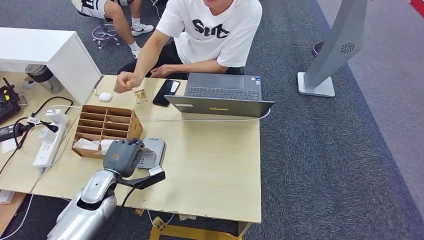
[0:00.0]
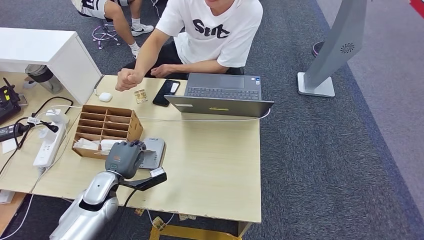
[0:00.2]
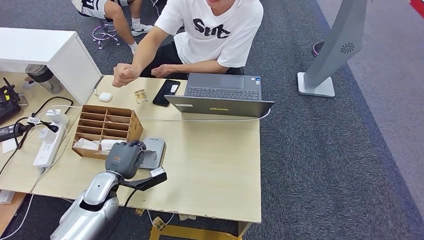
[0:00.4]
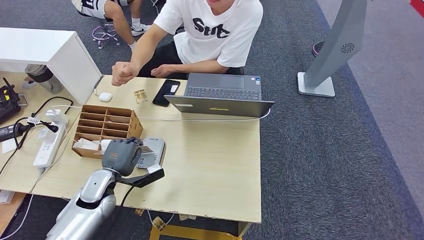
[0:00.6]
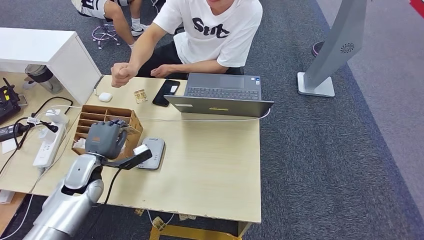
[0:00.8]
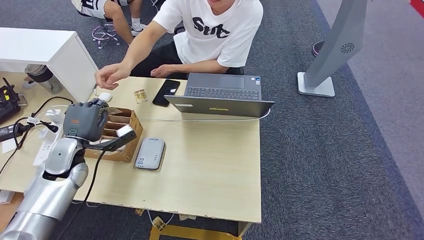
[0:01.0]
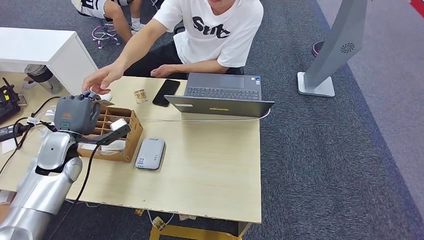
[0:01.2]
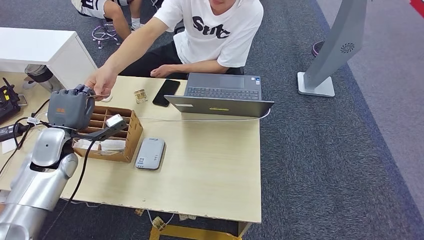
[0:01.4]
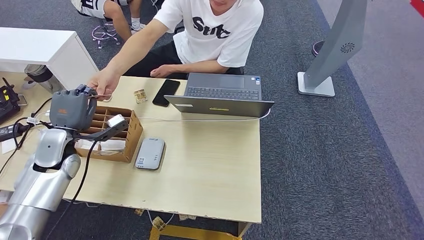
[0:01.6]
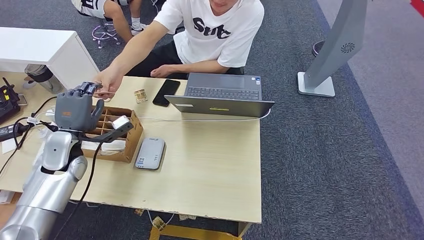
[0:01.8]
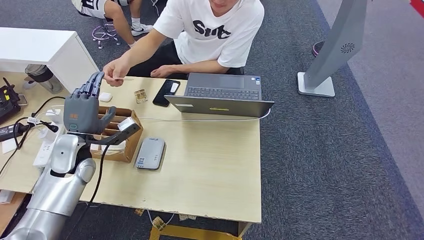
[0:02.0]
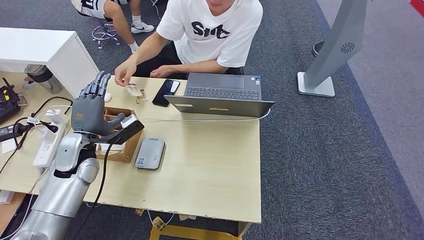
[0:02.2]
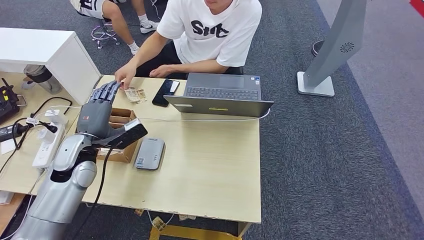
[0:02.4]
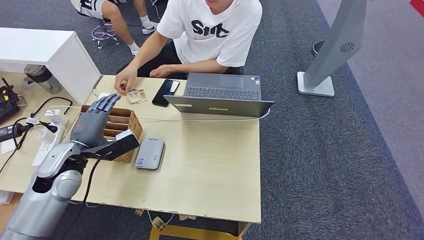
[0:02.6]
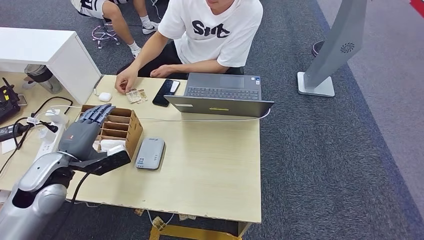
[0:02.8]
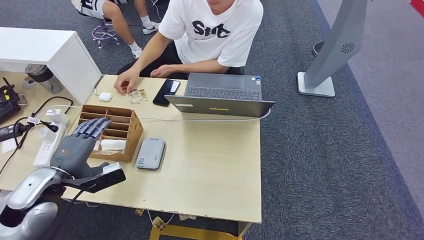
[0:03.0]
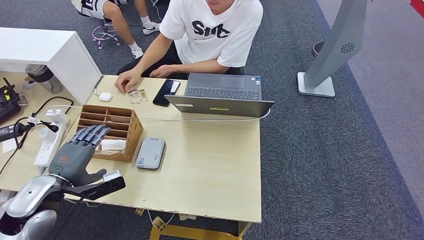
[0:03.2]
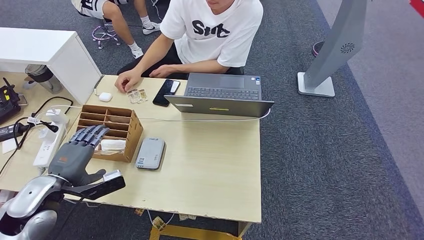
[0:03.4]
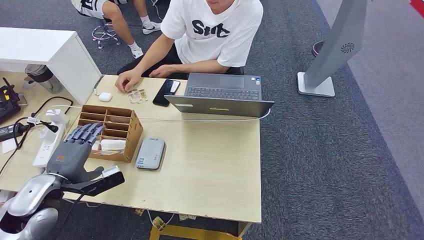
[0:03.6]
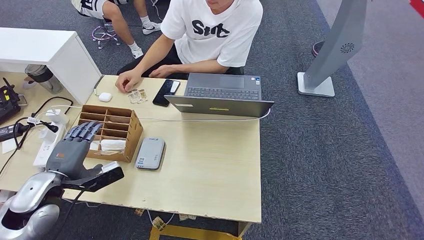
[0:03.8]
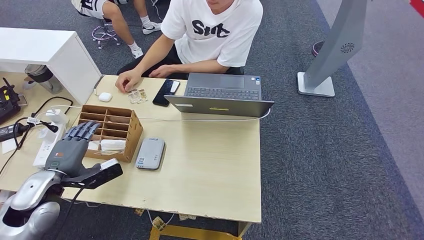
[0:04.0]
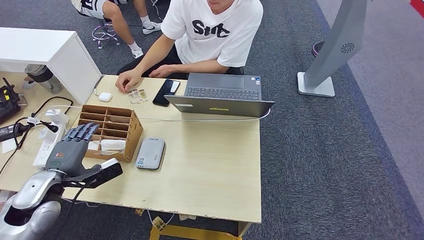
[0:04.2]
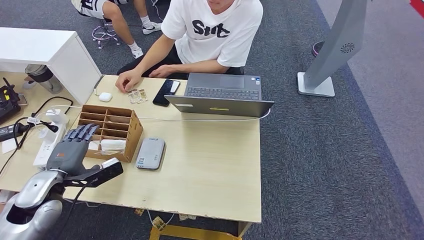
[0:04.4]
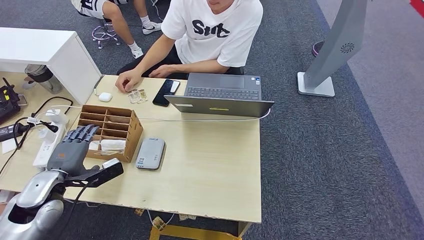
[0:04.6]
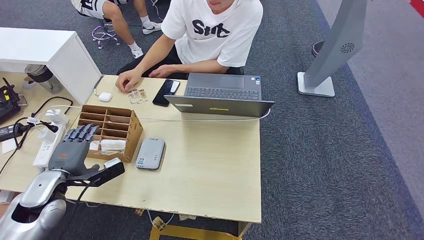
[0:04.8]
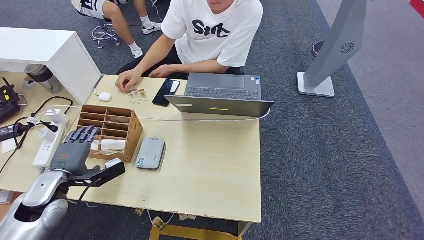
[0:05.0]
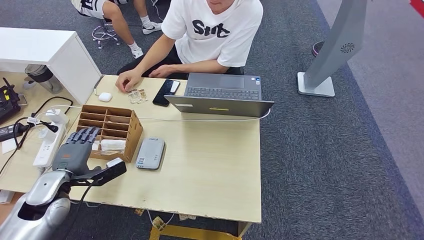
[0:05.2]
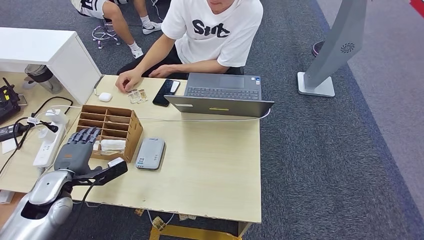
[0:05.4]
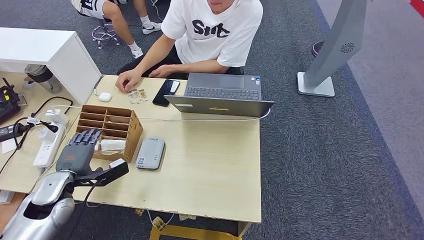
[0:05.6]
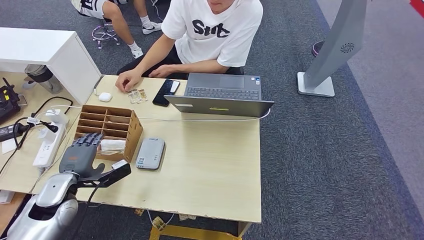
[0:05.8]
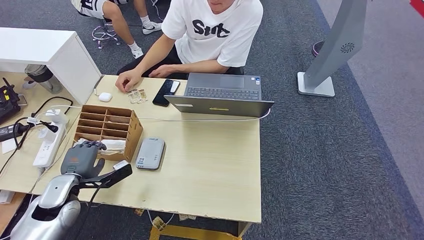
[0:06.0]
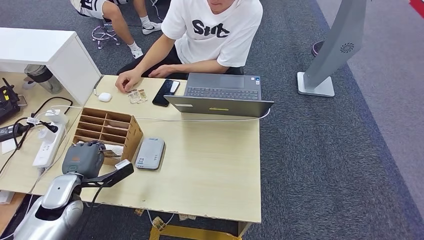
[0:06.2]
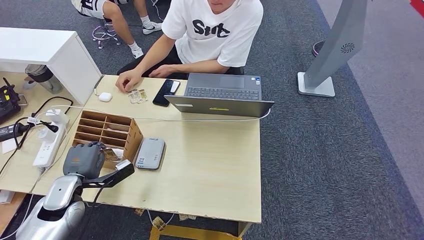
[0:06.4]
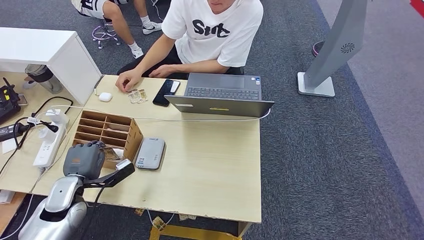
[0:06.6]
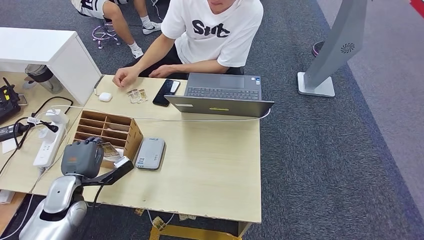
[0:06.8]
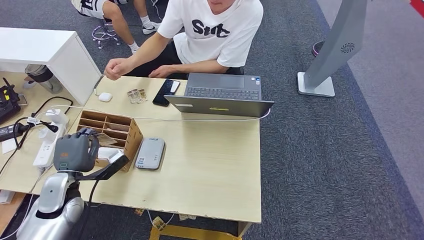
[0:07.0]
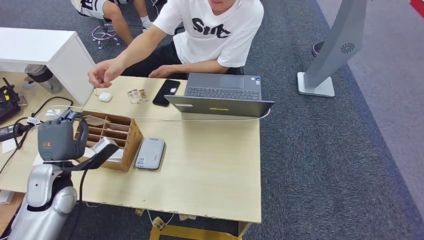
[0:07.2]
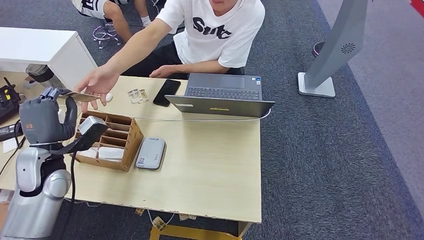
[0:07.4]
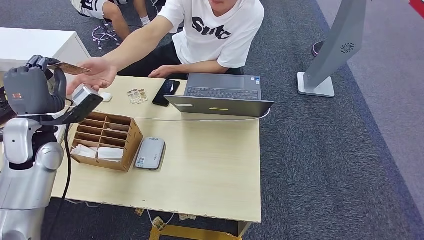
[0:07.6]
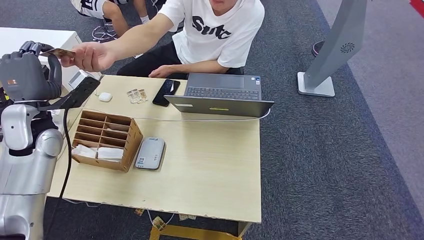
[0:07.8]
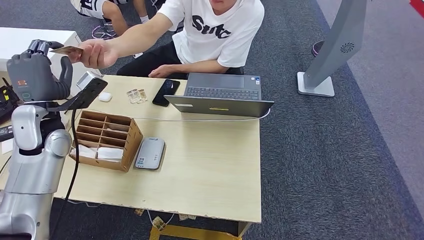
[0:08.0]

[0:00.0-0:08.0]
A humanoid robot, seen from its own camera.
Step, 0:00.6 to 0:01.8: Hand the ID card to the person.
Step, 0:02.2 to 0:07.0: Pick up the room key from the key card box.
Step, 0:07.2 to 0:08.0: Hand the room key to the person.
0:00.0 to 0:01.6: The left hand shifts some 15 cm upward, to the left and forward.
0:01.6 to 0:03.2: The left hand is displaced backward by some 10 cm.
0:03.2 to 0:04.8: The hands move only a little.
0:04.8 to 0:06.4: The left hand heads downward, covering some 5 cm.
